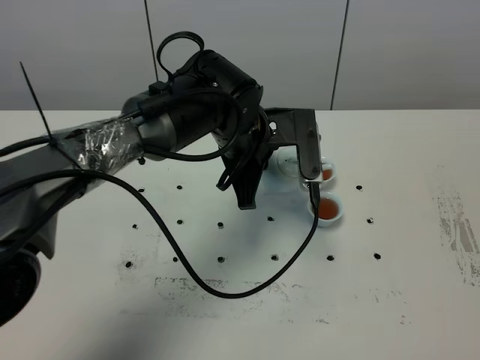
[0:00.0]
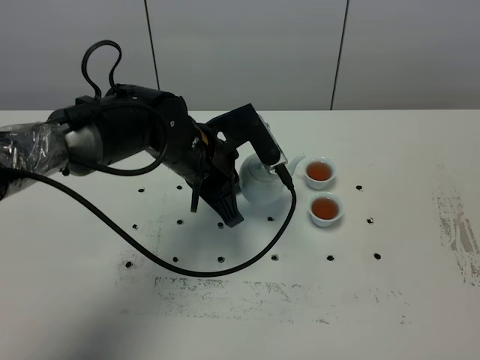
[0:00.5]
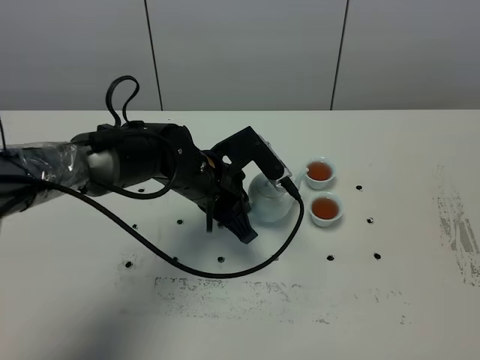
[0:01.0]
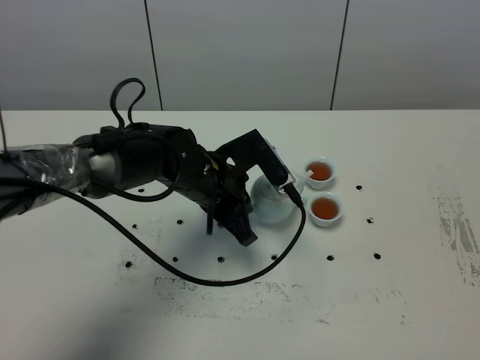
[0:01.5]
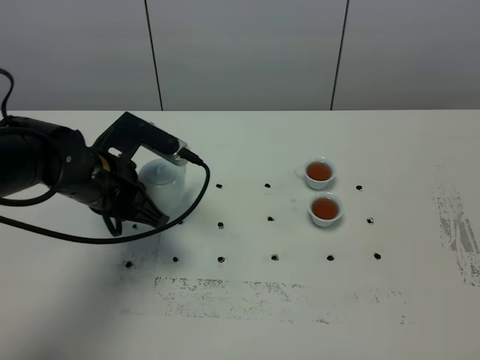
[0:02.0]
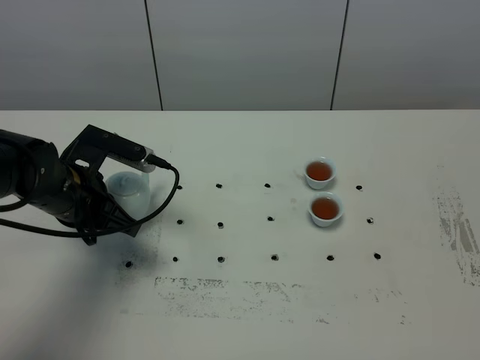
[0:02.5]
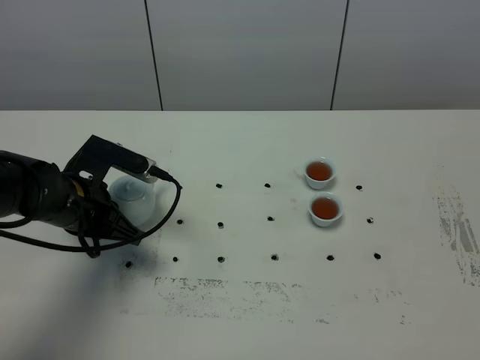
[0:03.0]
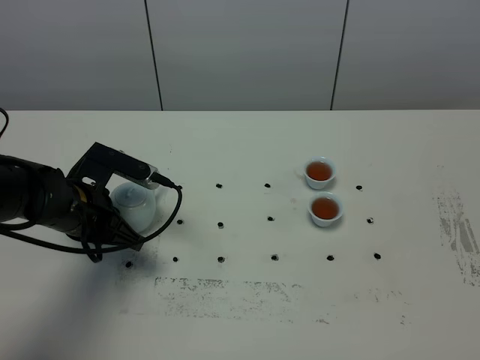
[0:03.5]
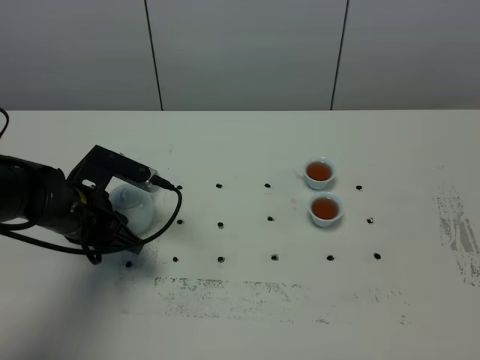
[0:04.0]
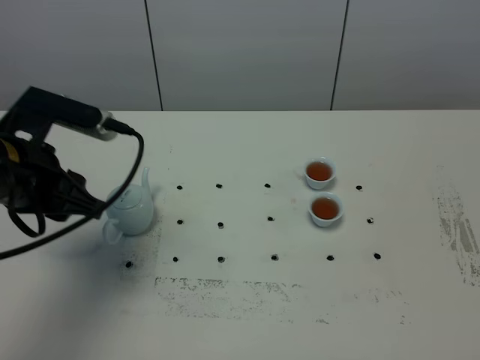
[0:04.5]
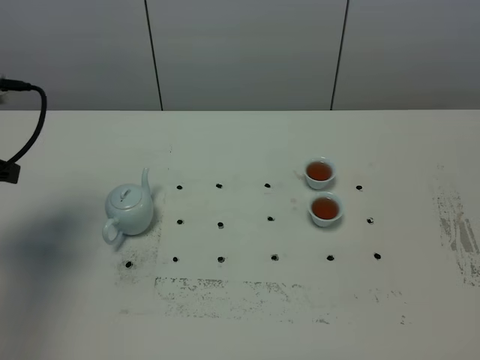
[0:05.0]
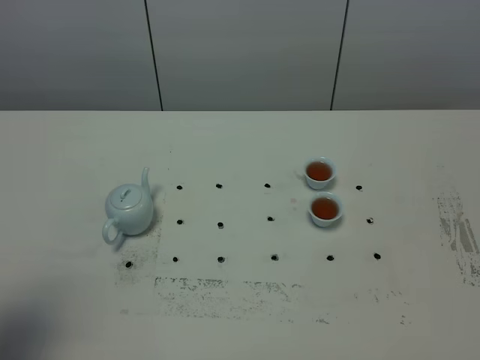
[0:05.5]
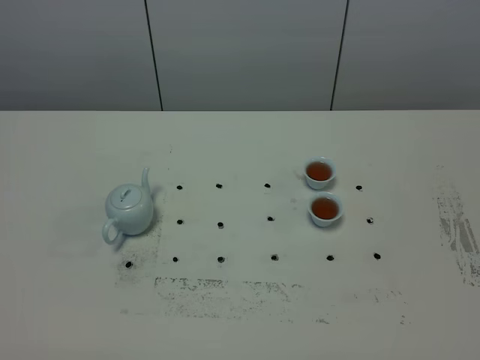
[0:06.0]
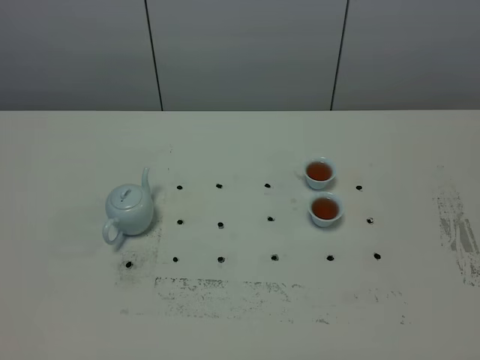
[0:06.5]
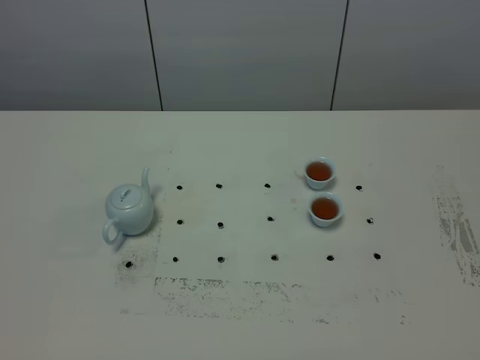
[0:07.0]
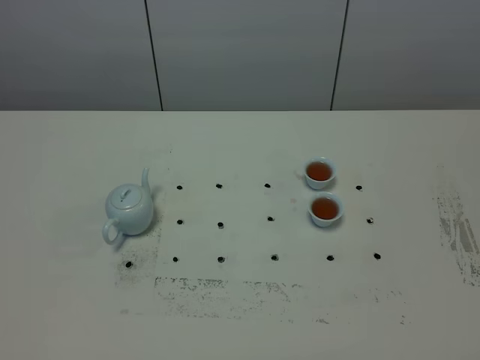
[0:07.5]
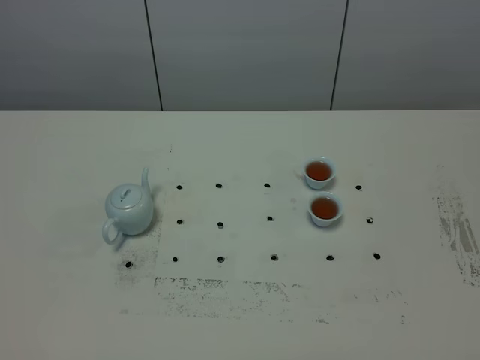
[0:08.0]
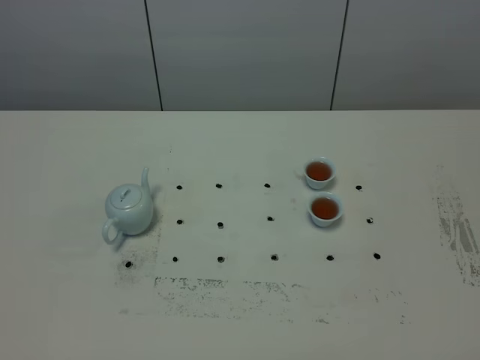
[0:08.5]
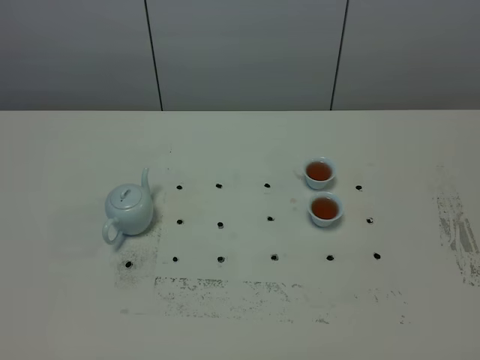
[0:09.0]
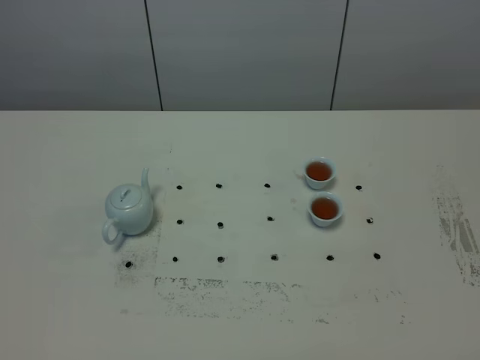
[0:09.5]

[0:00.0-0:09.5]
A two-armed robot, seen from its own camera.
Task of the whole recording: grasp the blue porcelain teapot and pour the tea into the two blue porcelain teacups one by one, put the blue porcelain teapot back in its original place.
0:00.0 to 0:02.0: The left gripper heads to the left, covering approximately 15 cm.
0:02.0 to 0:04.0: The left gripper moves roughly 5 cm, and opens.
0:04.0 to 0:05.5: The left gripper shifts about 30 cm backward, upward and to the left.
0:05.5 to 0:07.5: The left gripper heads backward and downward, covering roughly 15 cm.
0:07.5 to 0:09.5: The two grippers keep their place.

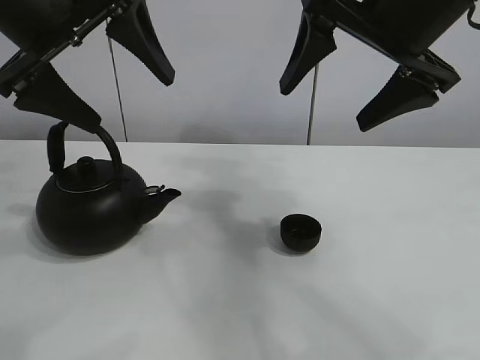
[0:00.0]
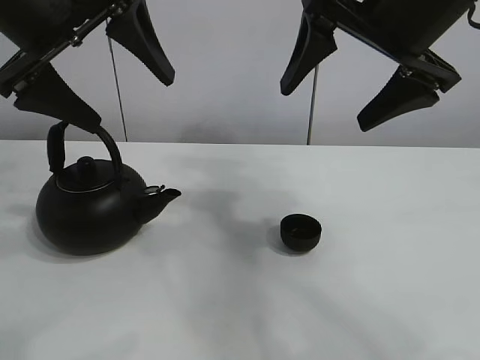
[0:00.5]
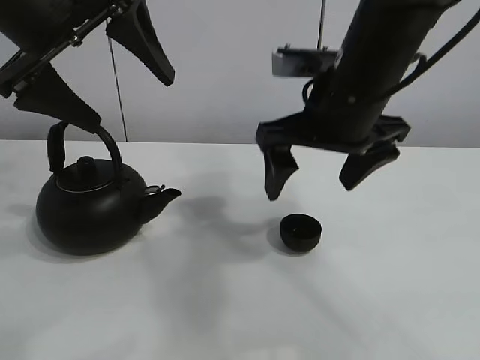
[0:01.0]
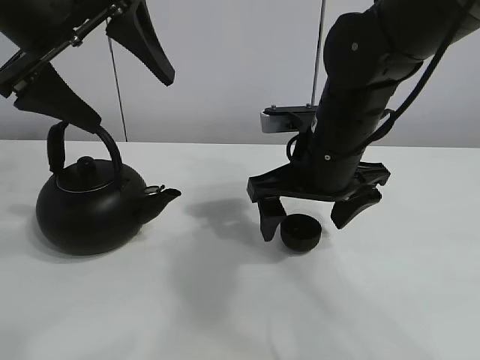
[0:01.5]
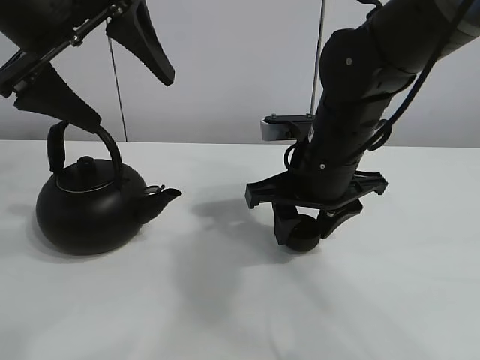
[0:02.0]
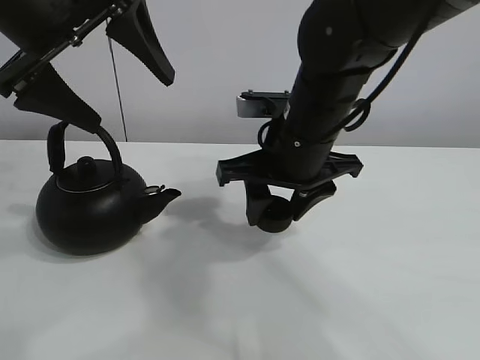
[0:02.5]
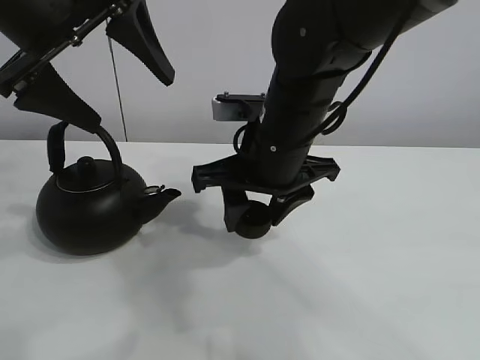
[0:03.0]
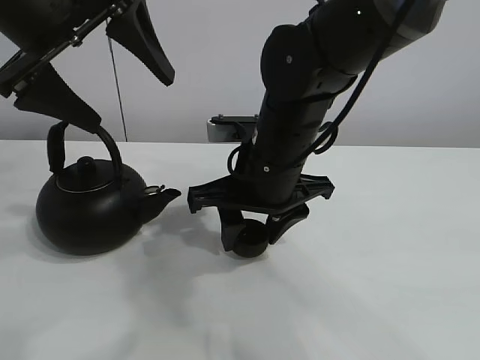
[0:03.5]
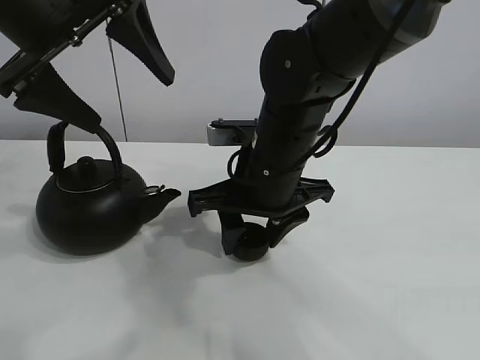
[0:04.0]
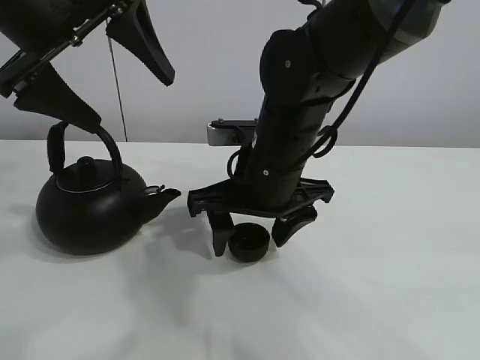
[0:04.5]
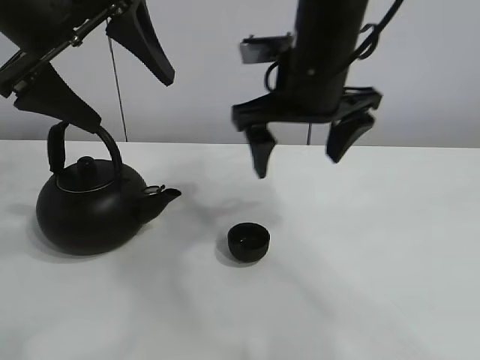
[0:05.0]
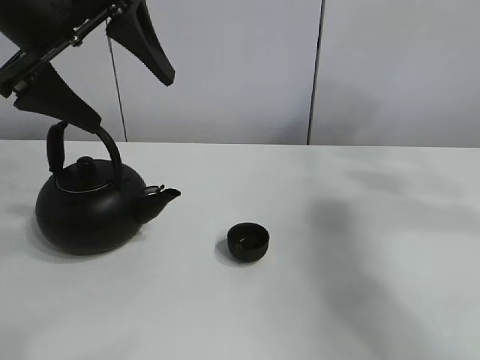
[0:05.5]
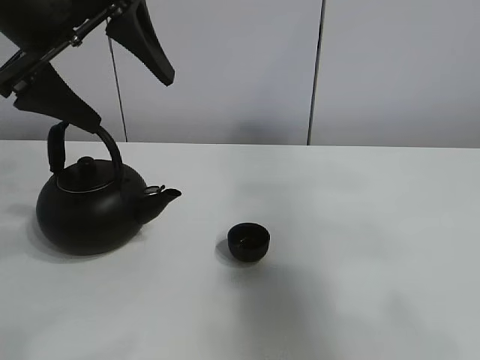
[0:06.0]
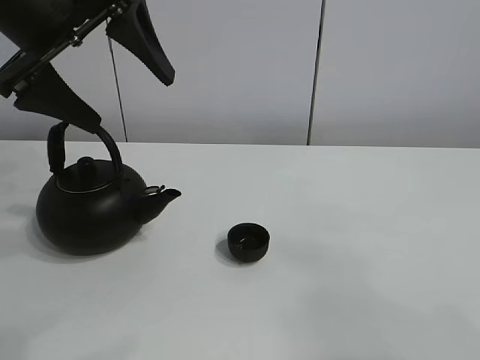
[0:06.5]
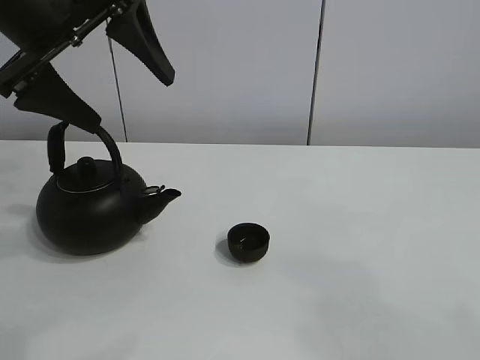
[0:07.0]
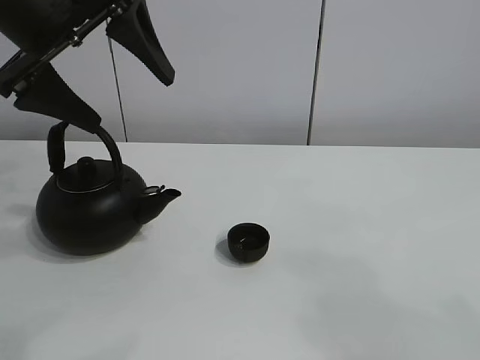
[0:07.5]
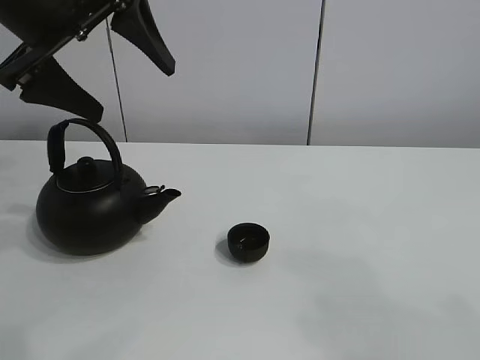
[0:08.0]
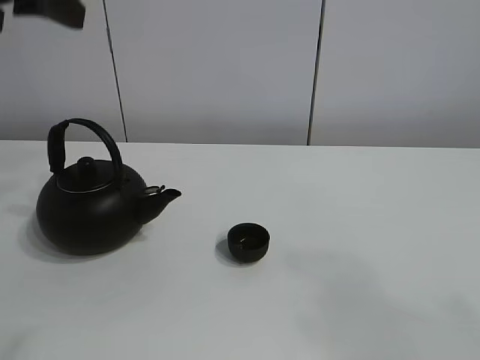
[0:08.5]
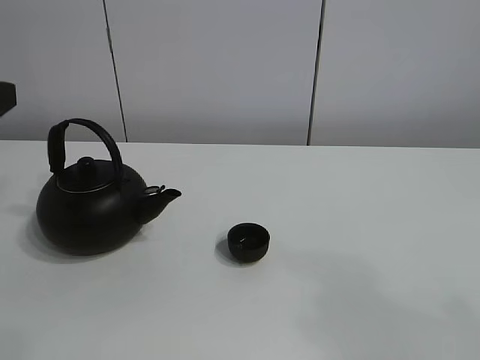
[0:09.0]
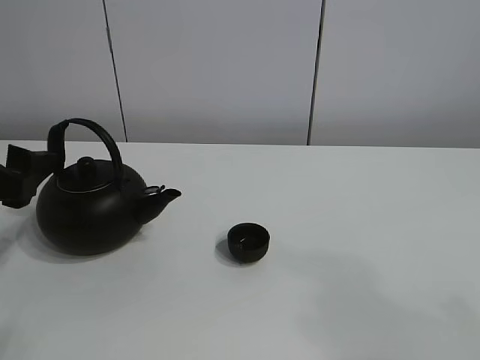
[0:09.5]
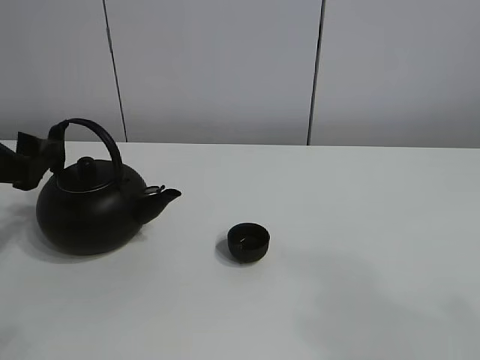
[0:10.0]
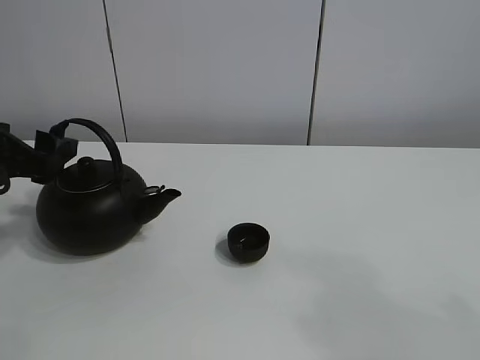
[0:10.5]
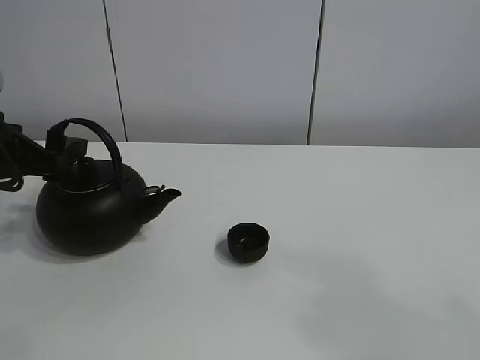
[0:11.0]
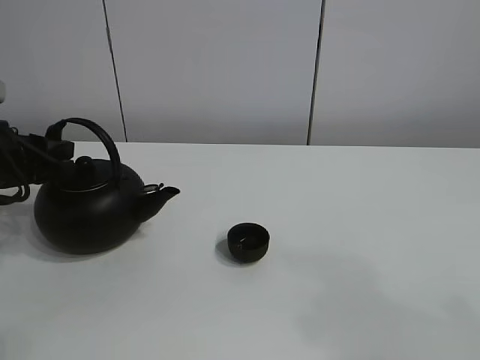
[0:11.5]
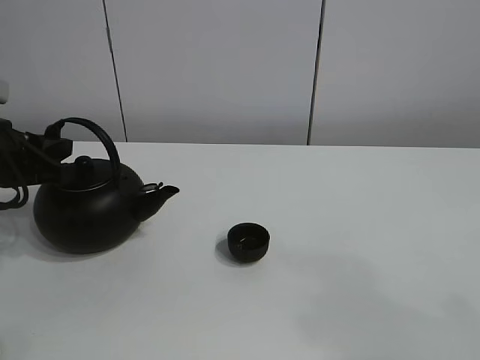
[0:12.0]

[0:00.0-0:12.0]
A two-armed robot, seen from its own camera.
Task of the whole recording: pour tea into the teacup.
Step, 0:00.0 to 0:02.0: Pick up the teacup with the right gripper.
Step, 0:02.5 to 0:04.0: Place the teacup in the center of view with the right gripper.
0:02.0 to 0:04.0: The right gripper moves to the left, about 5 cm.
0:04.0 to 0:06.0: The right gripper heads upward, to the right and backward, covering about 40 cm, and opens up.
0:06.0 to 0:08.0: The right gripper is displaced backward and downward by about 20 cm.
0:08.0 to 0:10.0: The left gripper heads downward and to the left, covering about 15 cm.
0:10.0 to 0:12.0: The left gripper changes place by roughly 5 cm, and closes its fingers.

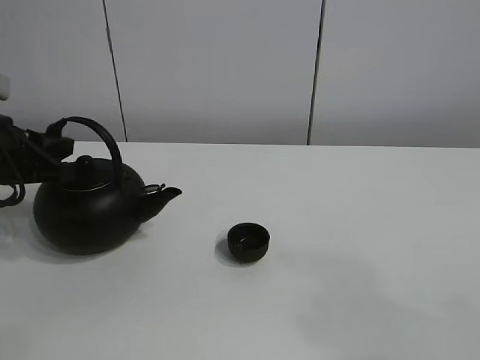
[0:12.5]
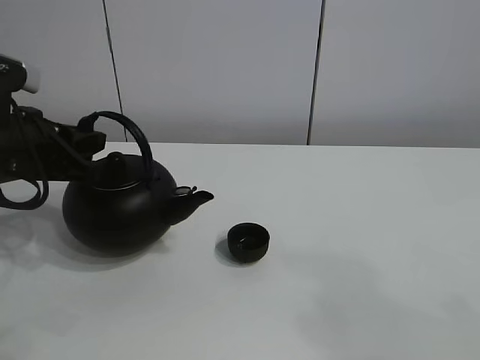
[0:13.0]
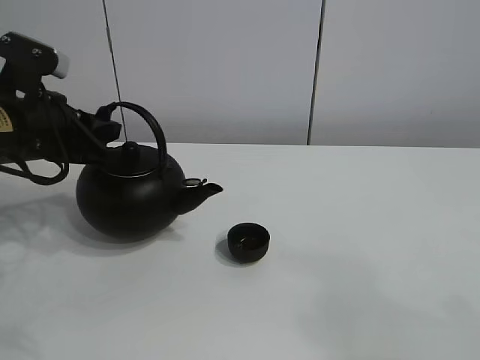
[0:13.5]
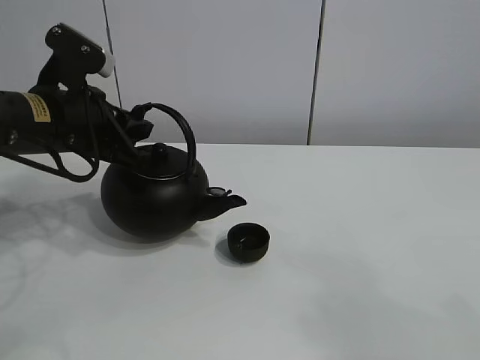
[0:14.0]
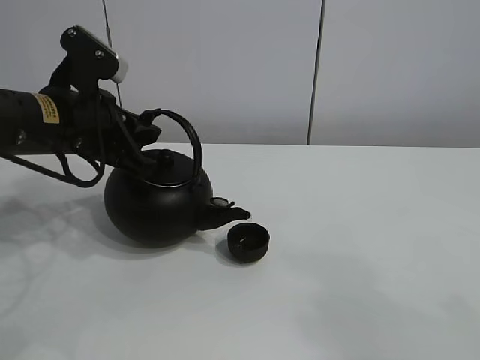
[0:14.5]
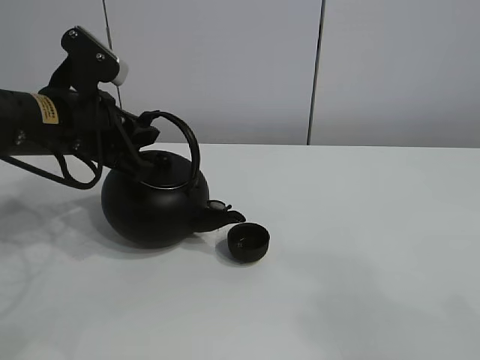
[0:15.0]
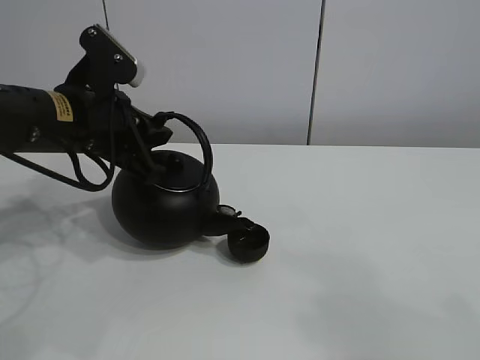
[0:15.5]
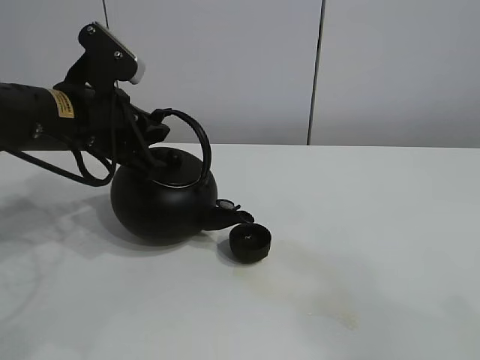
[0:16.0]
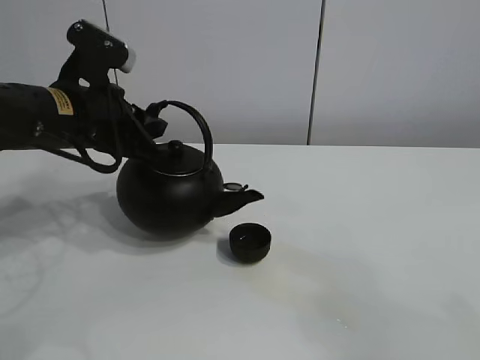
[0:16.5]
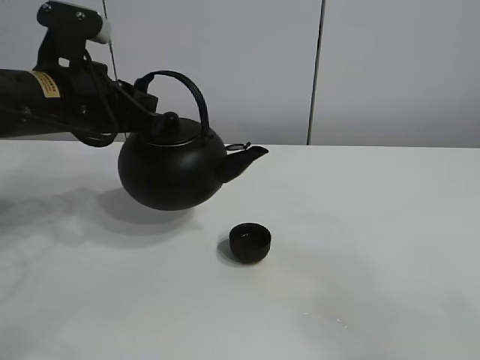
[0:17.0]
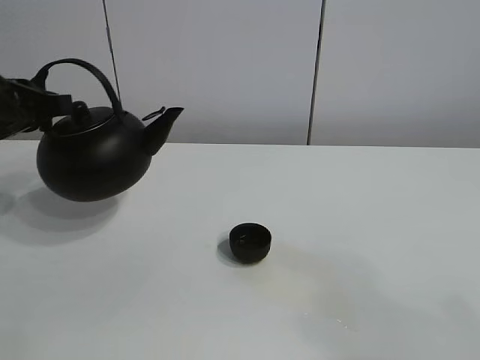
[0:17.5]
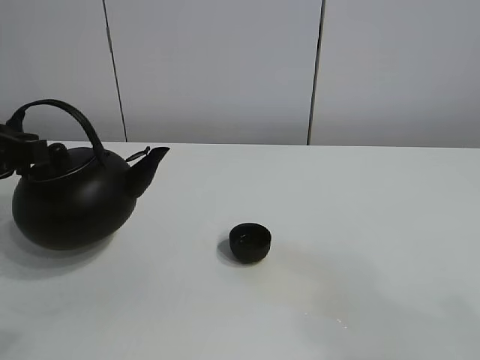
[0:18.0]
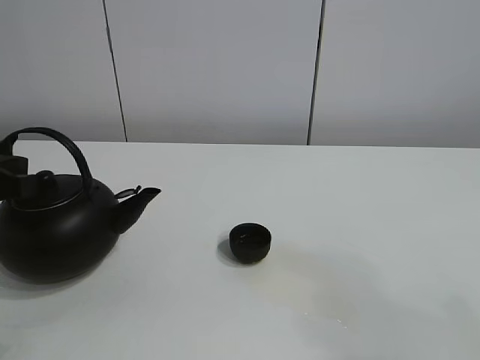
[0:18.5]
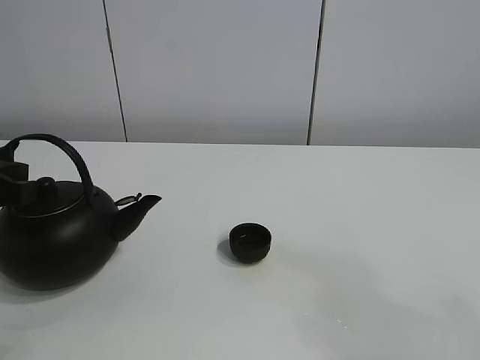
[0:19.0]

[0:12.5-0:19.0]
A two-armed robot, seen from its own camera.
Task of the whole recording: pour tea into the teacup.
Step, 0:13.0 to 0:16.0: Pour tea into the teacup with the left gripper.
0:12.5 to 0:14.5: The left gripper moves to the right, about 10 cm.
0:14.5 to 0:17.0: There are only small adjustments of the grippers.
0:17.0 to 0:19.0: The left gripper goes approximately 15 cm to the left and backward.
